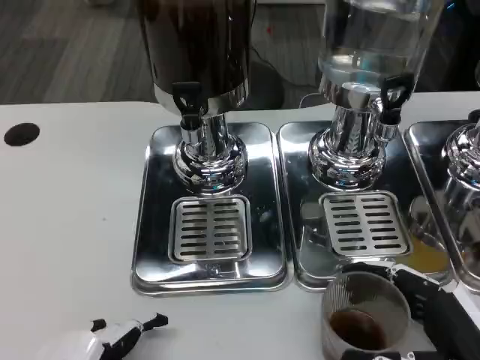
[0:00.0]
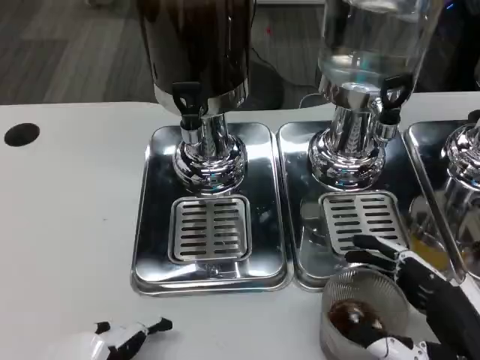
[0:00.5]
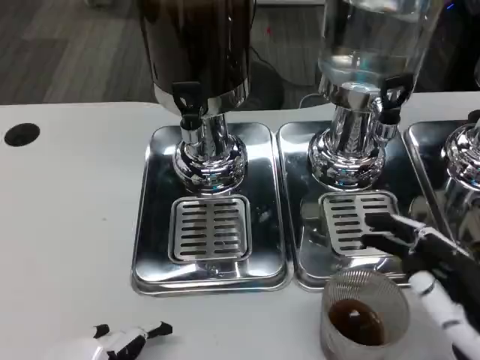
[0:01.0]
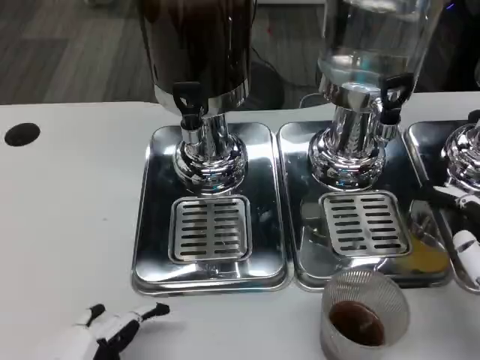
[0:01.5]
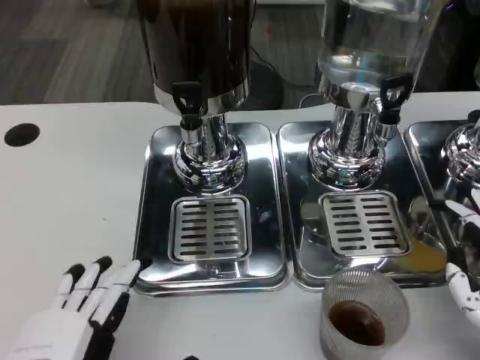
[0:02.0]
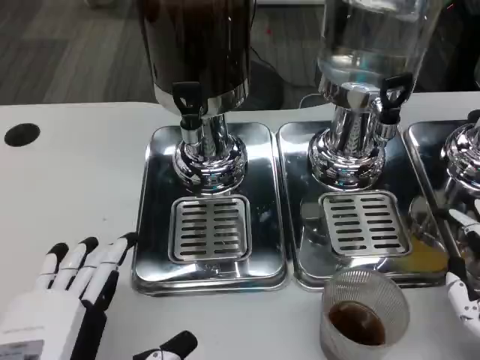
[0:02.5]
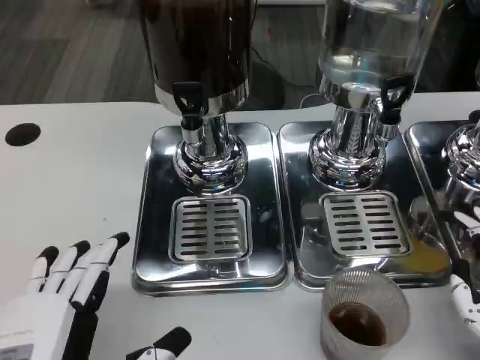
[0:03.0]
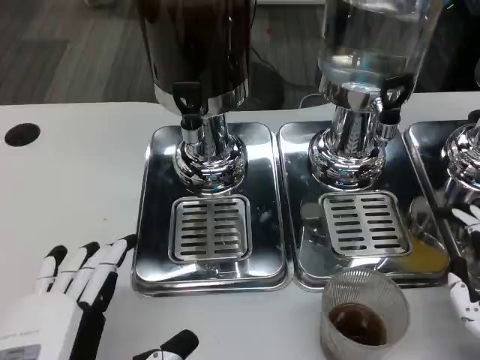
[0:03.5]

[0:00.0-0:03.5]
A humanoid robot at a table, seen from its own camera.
Task of the whole recording: Grasp the cup under the faucet to collect the drink, then remove the cup.
0:00.0 to 0:02.0: The right hand goes roughly 5 cm upward.
0:02.0 to 0:03.5: The hands make only small movements.

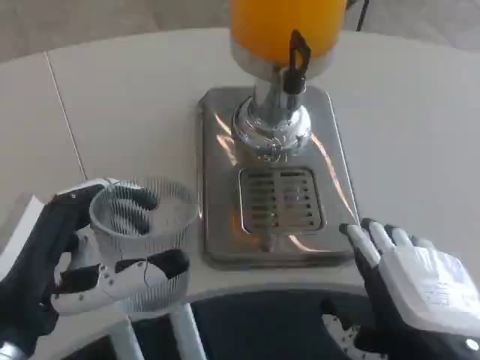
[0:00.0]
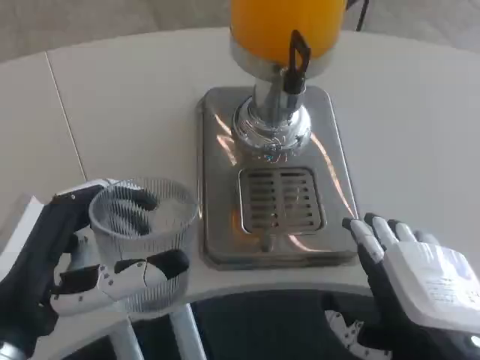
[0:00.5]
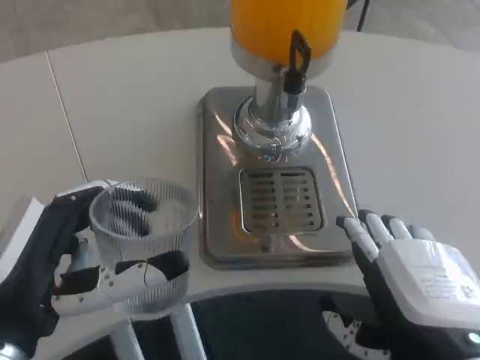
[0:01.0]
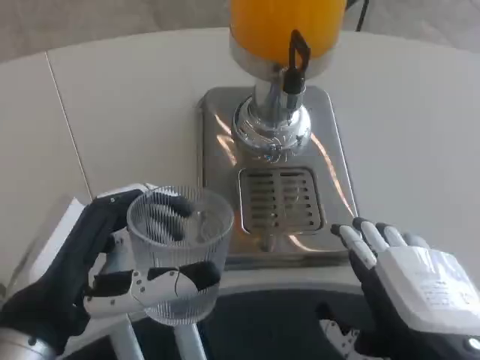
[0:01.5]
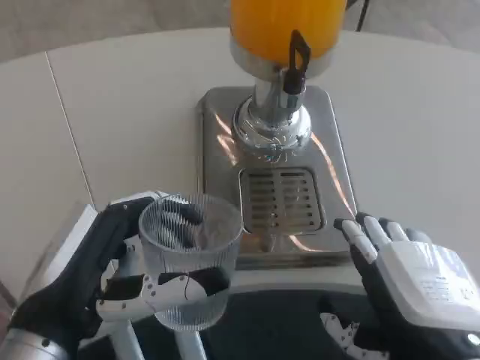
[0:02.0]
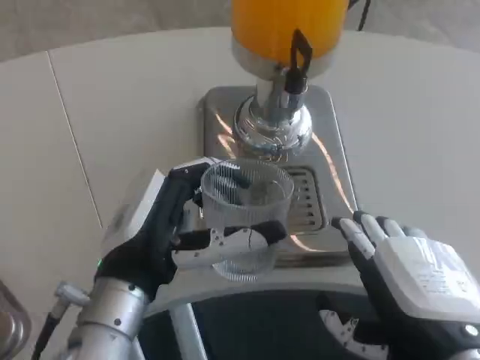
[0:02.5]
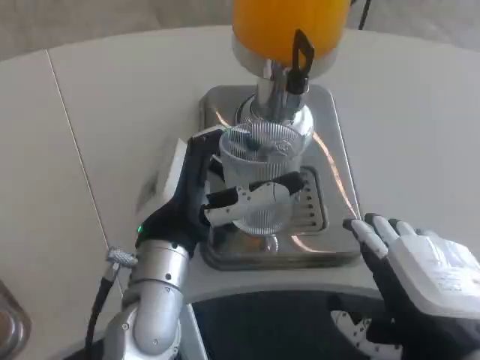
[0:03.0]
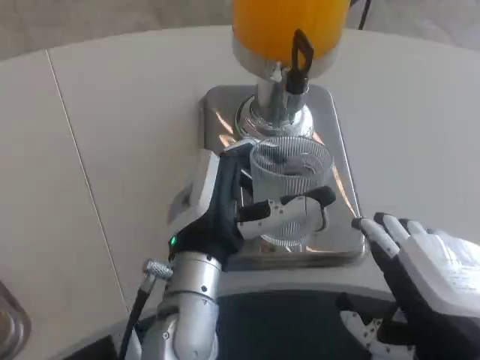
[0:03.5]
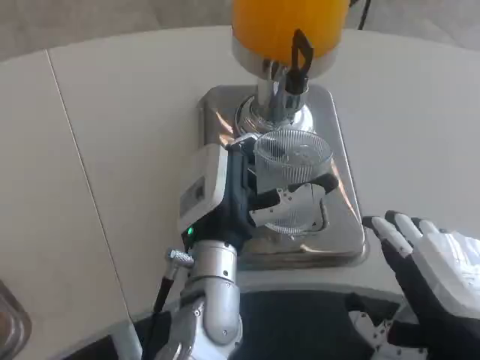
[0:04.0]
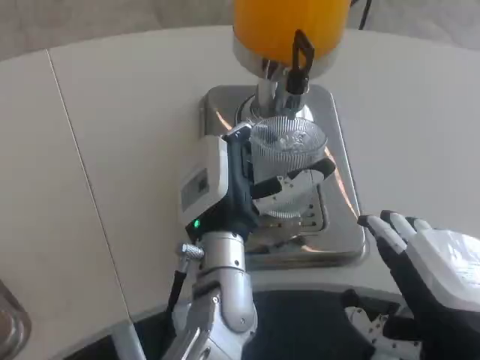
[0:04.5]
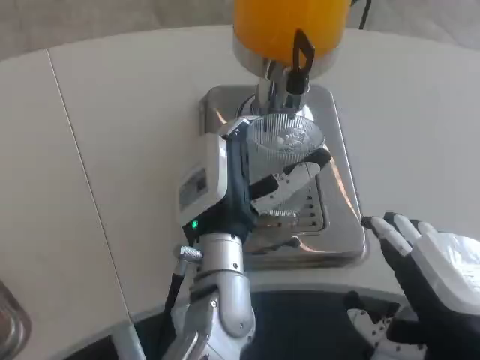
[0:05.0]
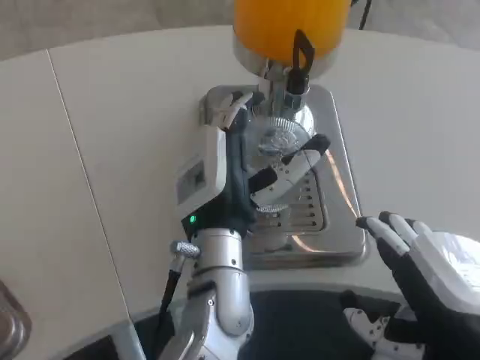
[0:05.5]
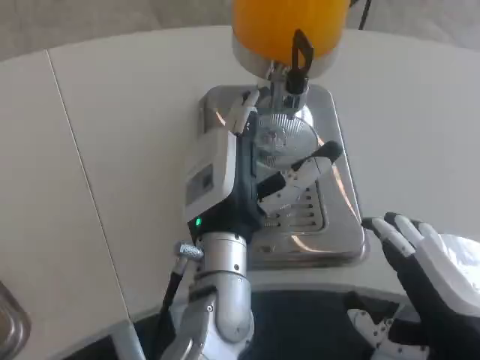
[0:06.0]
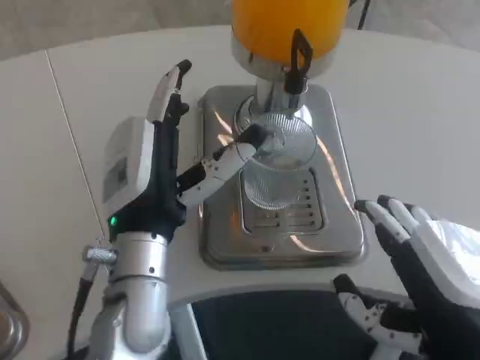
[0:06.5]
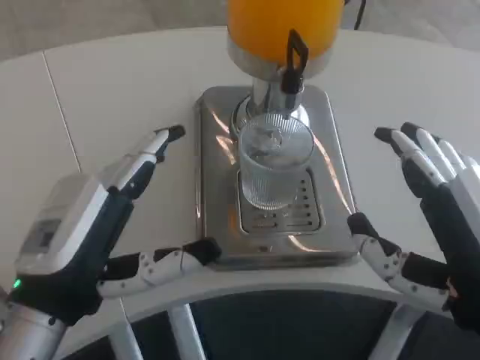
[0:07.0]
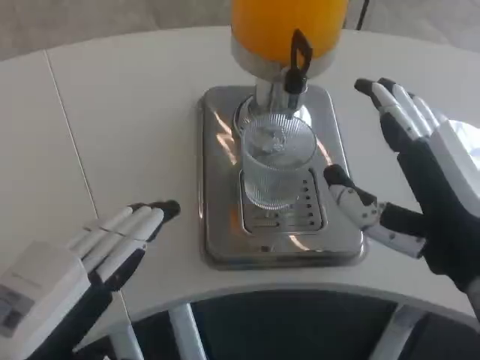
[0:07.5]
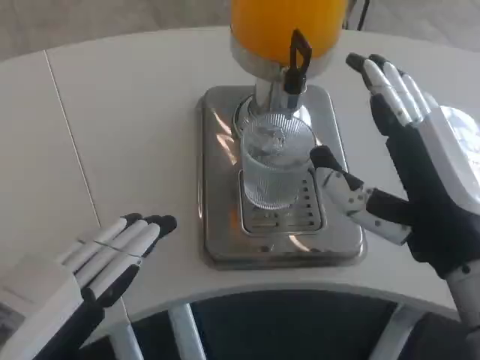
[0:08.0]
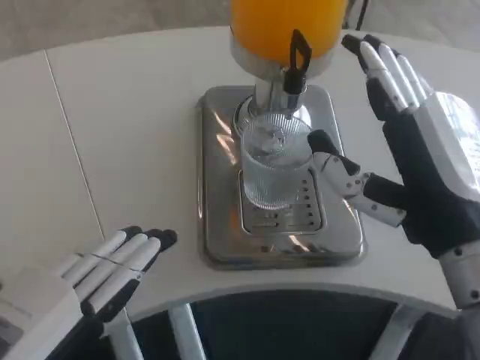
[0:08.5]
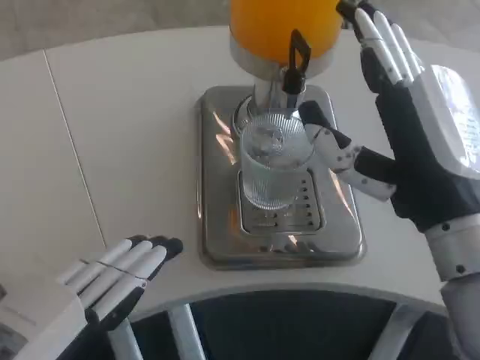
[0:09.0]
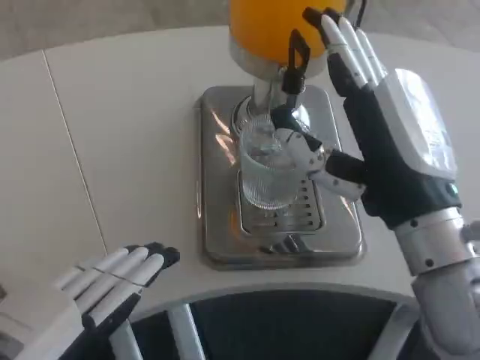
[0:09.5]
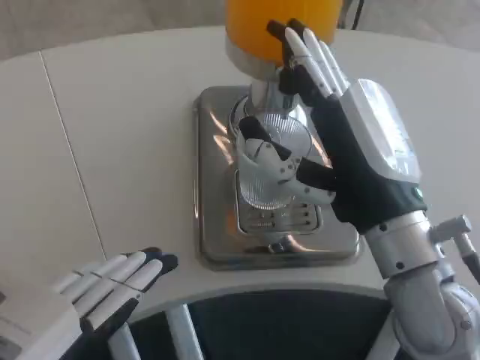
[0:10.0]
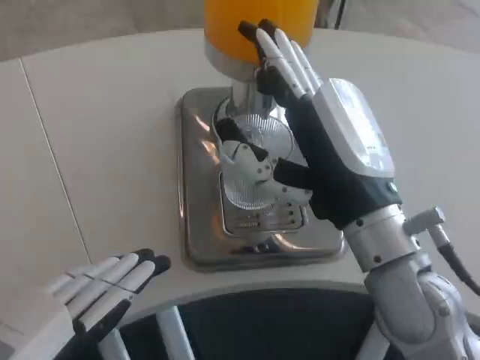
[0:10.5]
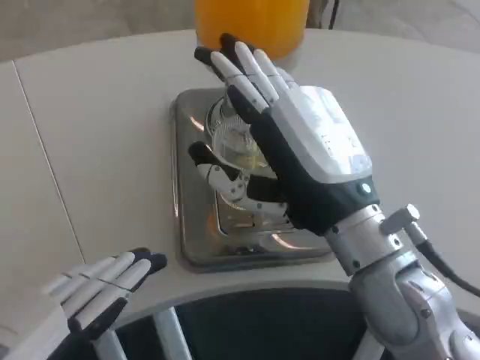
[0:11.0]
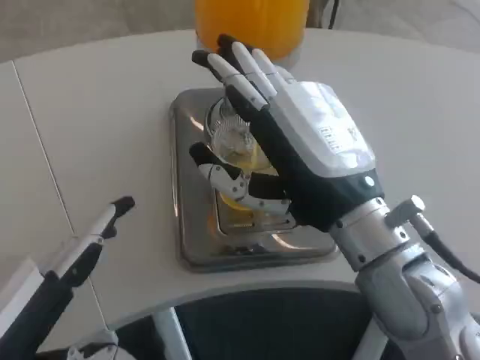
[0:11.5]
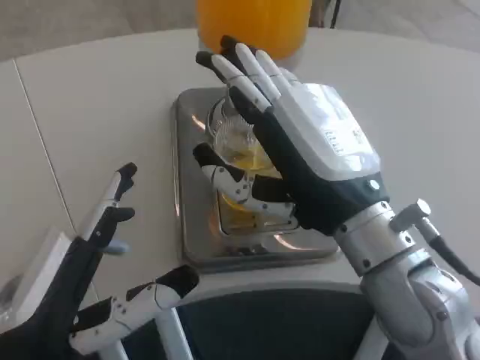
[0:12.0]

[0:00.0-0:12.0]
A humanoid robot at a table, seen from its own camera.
Task of the whole recording: Grasp the cup under the faucet to collect the drink, then remove the cup.
0:00.0 to 0:02.0: The hands move only a little.
0:02.0 to 0:04.0: The left hand moves to the right and forward, roughly 20 cm.
0:04.0 to 0:06.0: The hands stay close to where they were, moving slightly.
0:06.0 to 0:08.0: The right hand moves forward, approximately 5 cm; the left hand moves to the left and backward, roughly 25 cm.
0:08.0 to 0:10.0: The right hand shifts some 5 cm forward.
0:10.0 to 0:12.0: The left hand goes roughly 5 cm to the right.

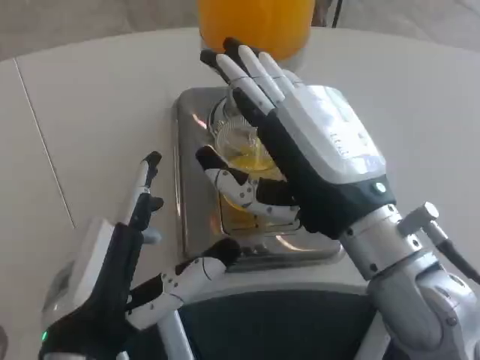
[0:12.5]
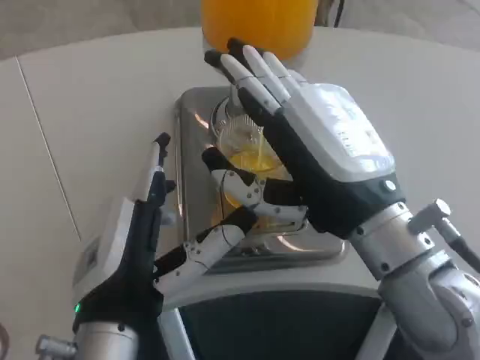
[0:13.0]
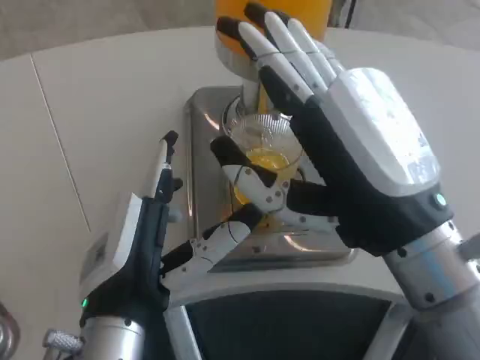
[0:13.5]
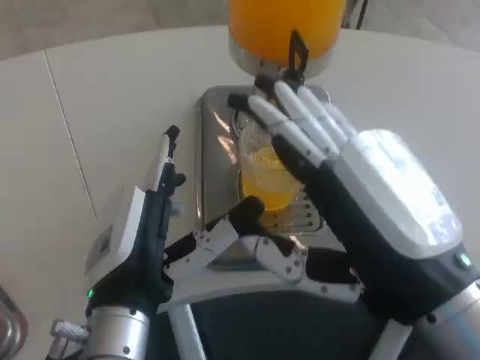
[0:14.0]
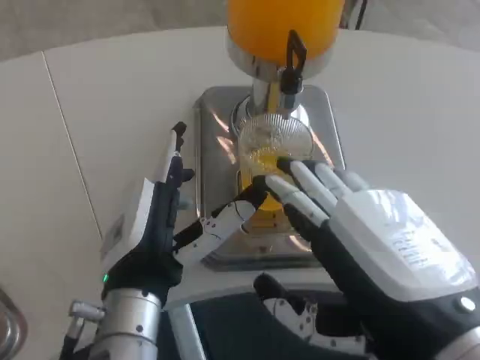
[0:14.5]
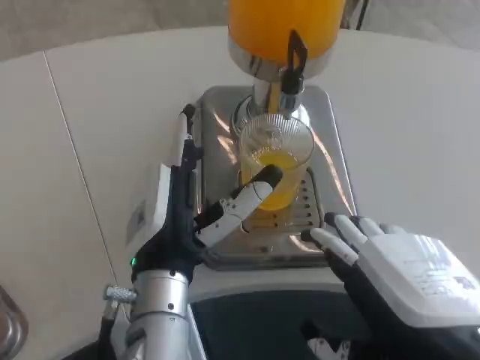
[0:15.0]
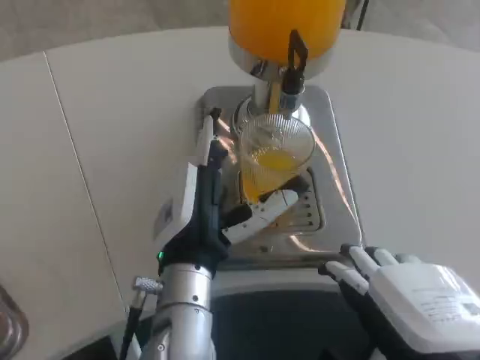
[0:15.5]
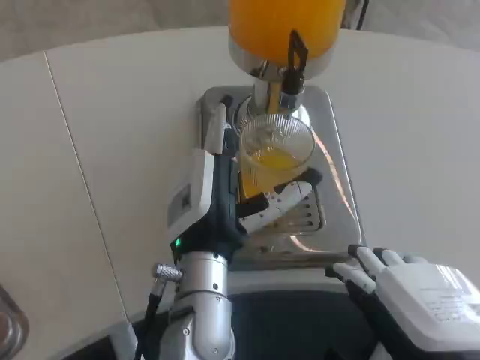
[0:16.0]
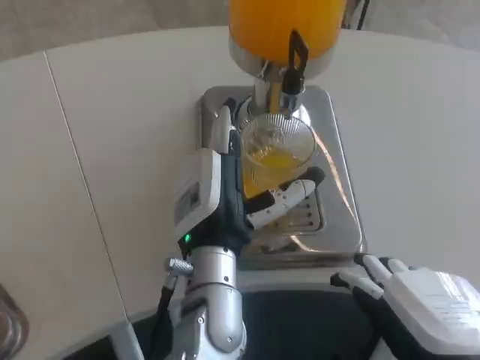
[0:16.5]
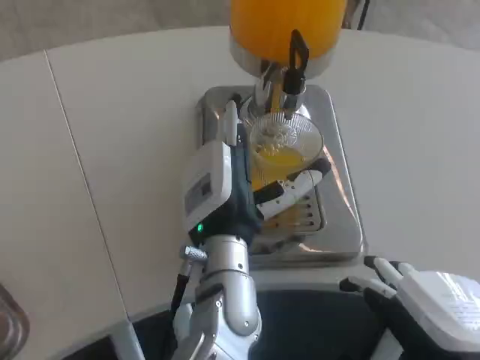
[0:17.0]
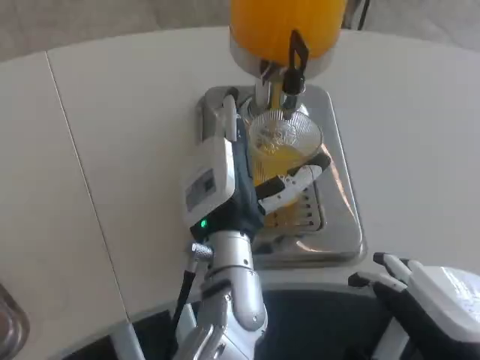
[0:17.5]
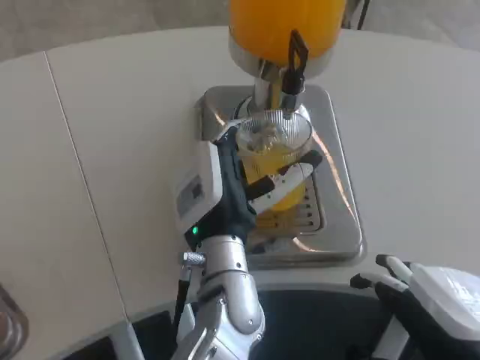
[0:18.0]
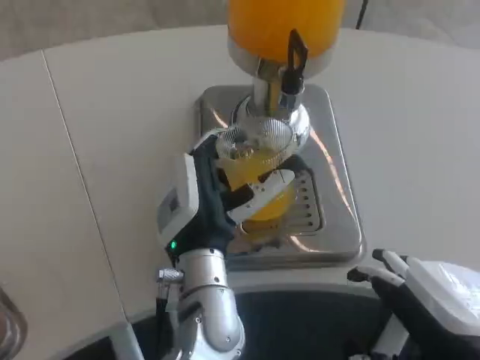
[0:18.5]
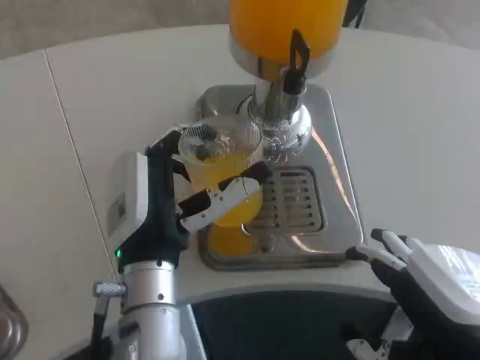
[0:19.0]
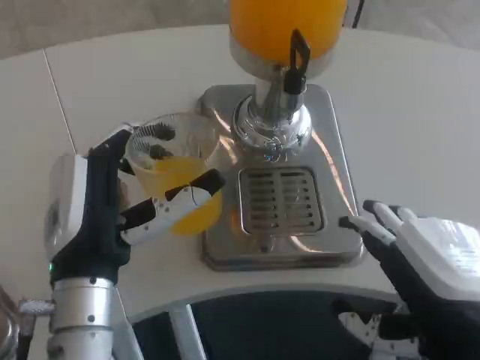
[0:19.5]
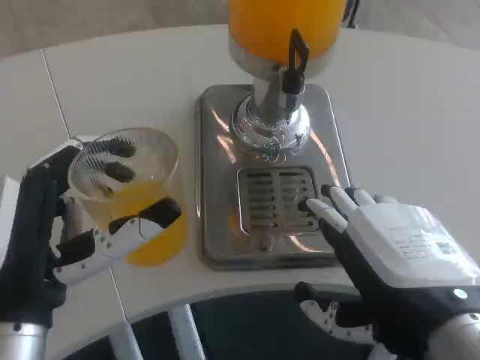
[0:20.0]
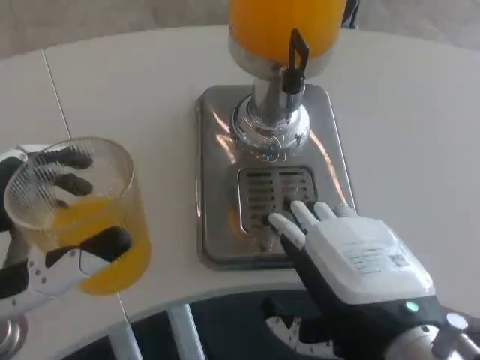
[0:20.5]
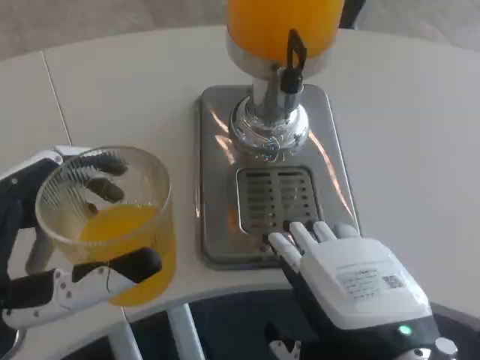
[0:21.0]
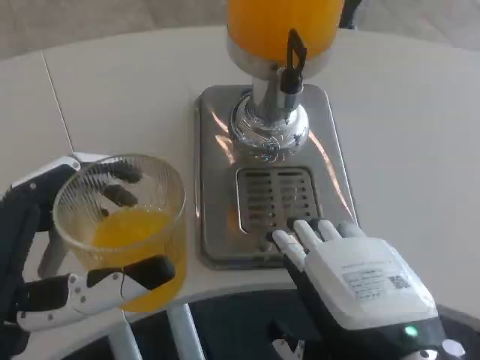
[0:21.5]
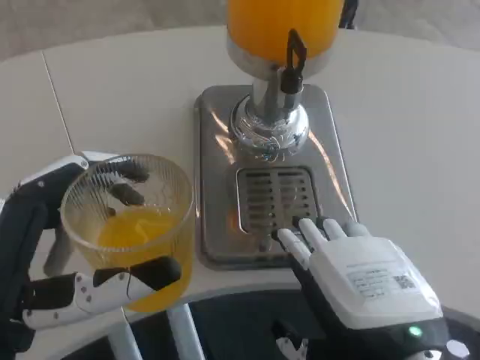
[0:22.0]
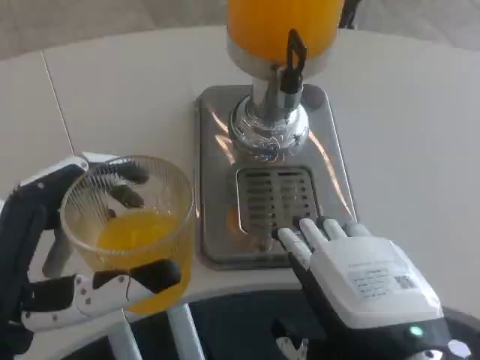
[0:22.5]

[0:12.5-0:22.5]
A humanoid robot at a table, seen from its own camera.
Task of the whole recording: Grasp the cup under the faucet to collect the drink, then remove the cup.
0:12.5 to 0:14.5: The left hand heads forward, covering roughly 5 cm, while the right hand moves backward, roughly 10 cm.
0:14.5 to 0:16.5: The left hand goes roughly 10 cm to the right and forward.
0:16.5 to 0:18.5: The hands stay close to where they were, moving slightly.
0:18.5 to 0:20.5: The left hand shifts some 25 cm to the left and backward; the right hand moves about 5 cm.
